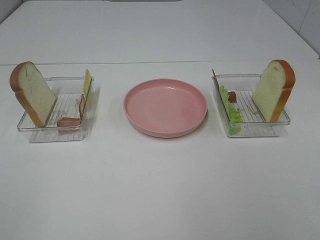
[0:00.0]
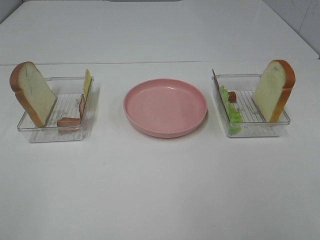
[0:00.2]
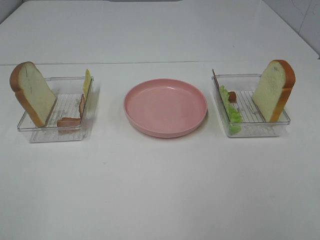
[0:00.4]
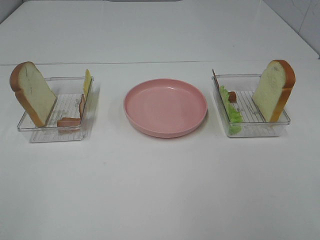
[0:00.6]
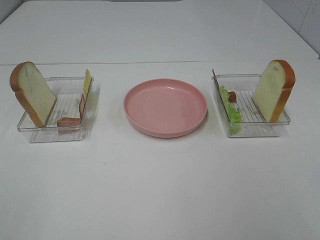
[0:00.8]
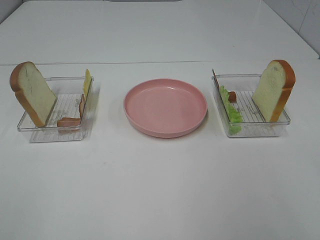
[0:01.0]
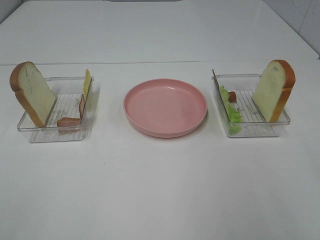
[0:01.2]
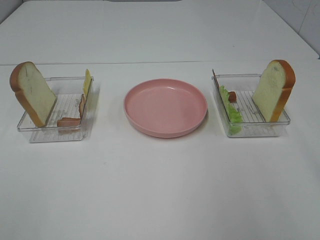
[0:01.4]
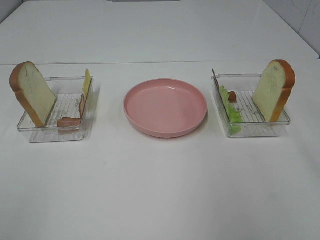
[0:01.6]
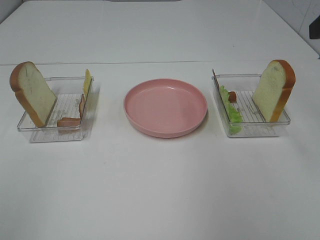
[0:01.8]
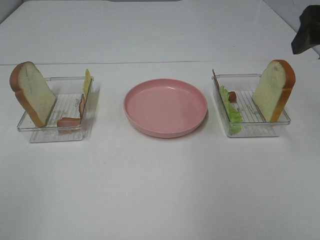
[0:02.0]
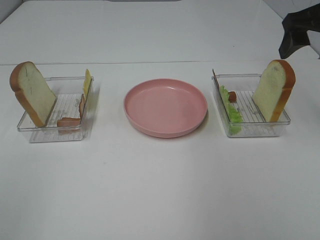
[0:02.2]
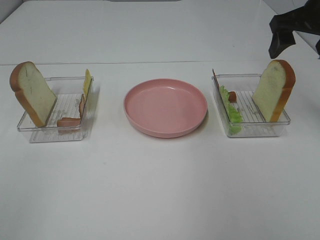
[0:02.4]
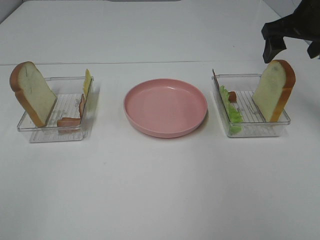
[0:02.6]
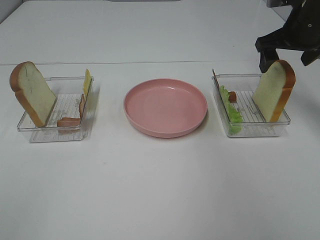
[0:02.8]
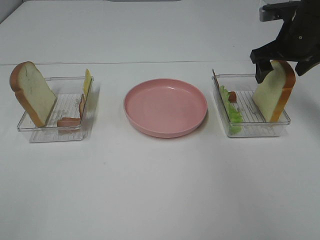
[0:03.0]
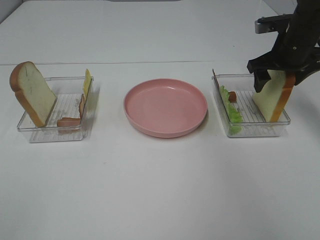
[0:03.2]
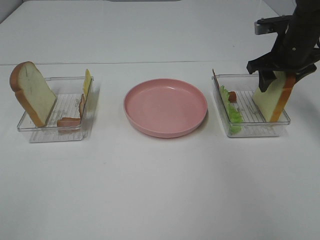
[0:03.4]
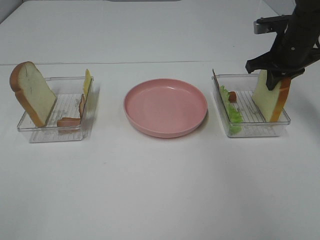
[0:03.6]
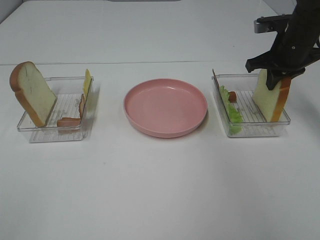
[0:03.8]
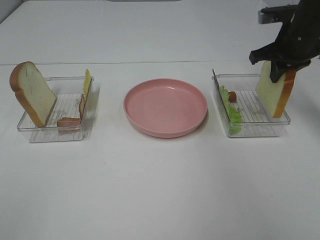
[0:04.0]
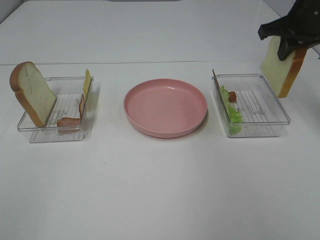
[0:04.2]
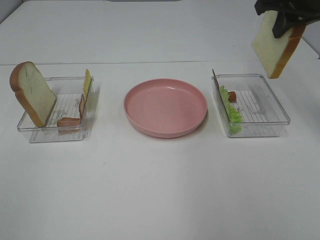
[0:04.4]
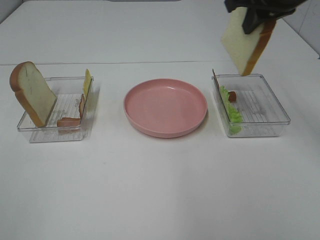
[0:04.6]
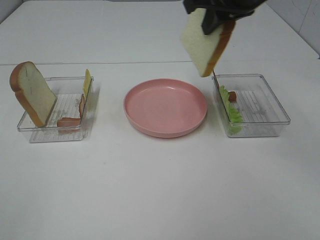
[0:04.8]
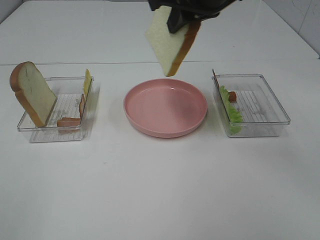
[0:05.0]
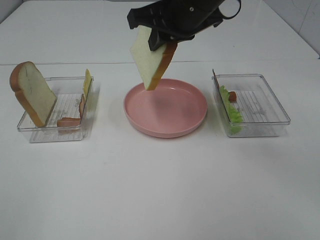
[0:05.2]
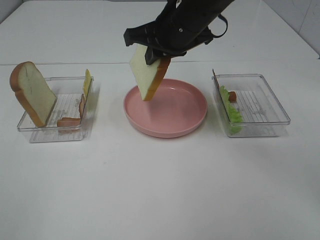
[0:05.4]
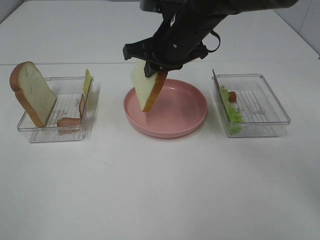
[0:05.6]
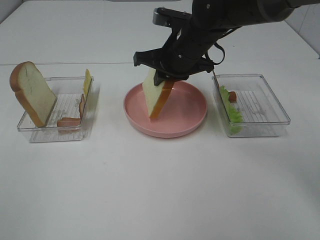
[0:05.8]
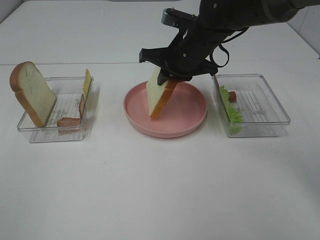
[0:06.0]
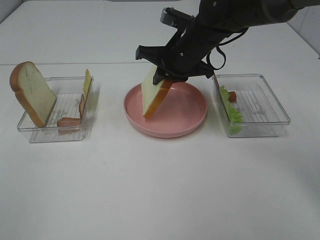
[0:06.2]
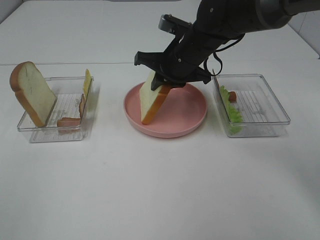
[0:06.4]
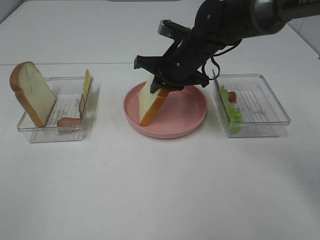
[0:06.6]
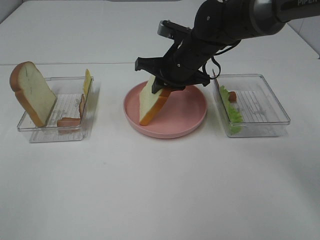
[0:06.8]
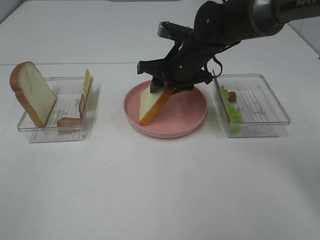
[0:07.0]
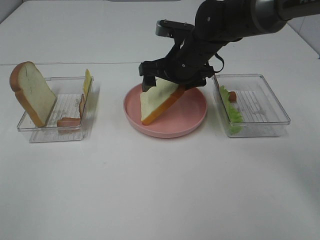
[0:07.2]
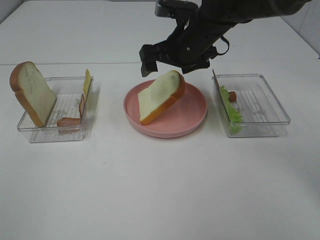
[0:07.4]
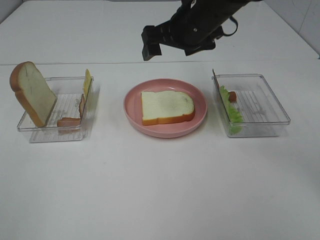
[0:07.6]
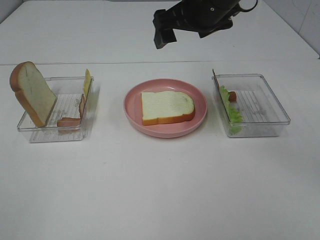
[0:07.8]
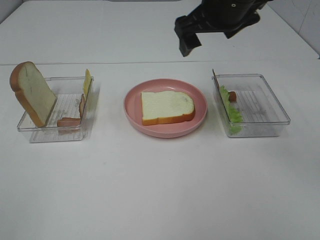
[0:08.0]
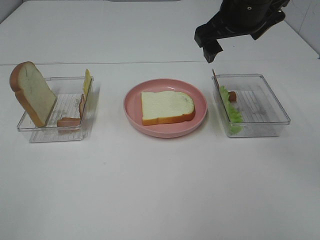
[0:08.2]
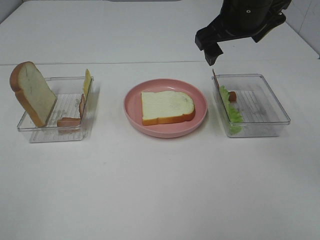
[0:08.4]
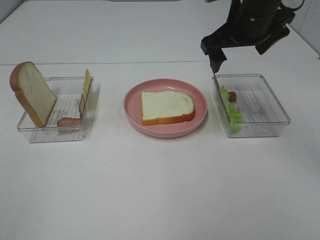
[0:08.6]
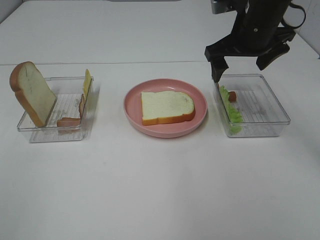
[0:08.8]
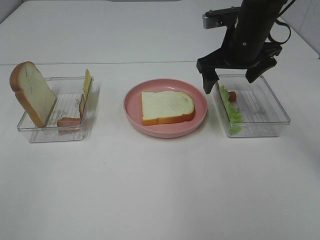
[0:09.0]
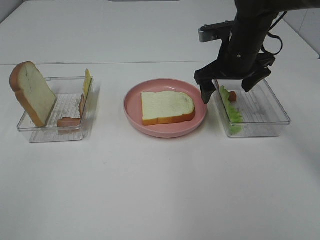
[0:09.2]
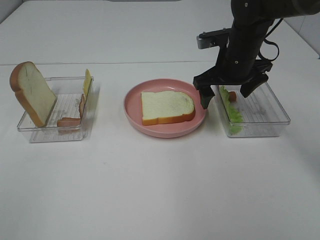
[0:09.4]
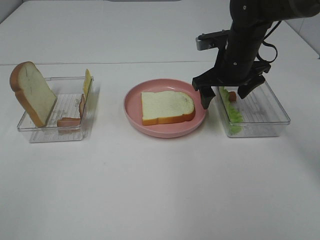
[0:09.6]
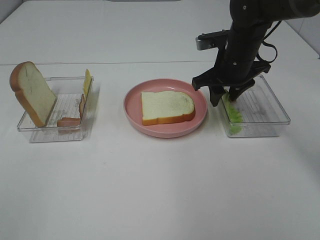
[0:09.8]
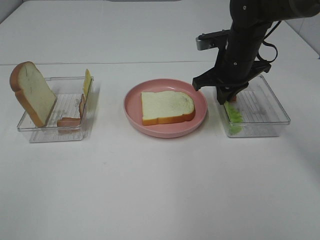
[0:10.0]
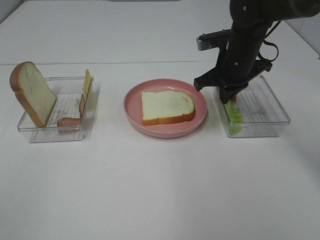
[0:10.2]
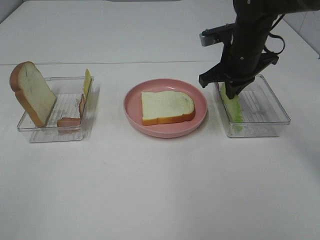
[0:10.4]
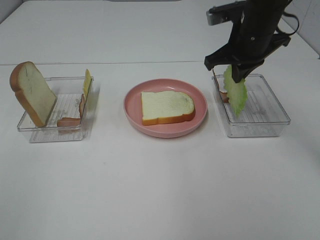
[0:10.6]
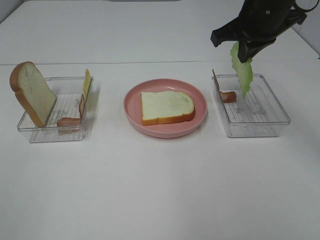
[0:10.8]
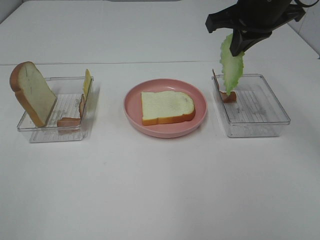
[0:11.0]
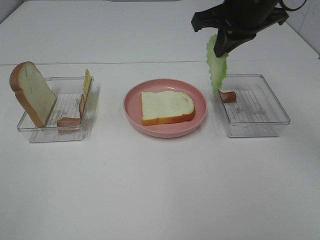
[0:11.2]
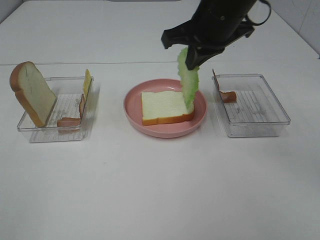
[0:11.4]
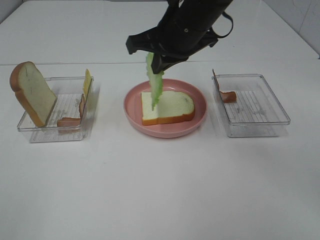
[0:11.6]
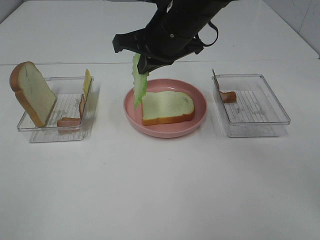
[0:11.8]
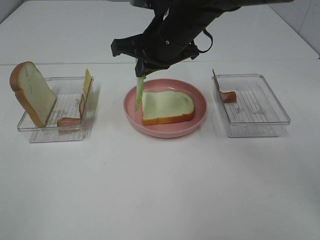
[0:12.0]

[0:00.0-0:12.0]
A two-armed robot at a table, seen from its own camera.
Task of the whole recording: Make sandwiches.
Step, 0.0 to 3.8 s: Right hand:grab the bread slice.
Step, 4.0 to 7.6 s: Right hand:place the bread slice on the plate.
Step, 7.8 to 10.2 s: Right hand:grab the lettuce slice.
1.6 to 3.0 s: The right gripper is displaced forward and downward by some 25 cm.
3.0 to 4.4 s: The right gripper travels upward by about 10 cm, and closes up.
4.4 to 6.0 s: The right gripper heads to the left and downward, covering approximately 20 cm.
6.0 to 7.6 s: The right gripper moves upward, roughly 5 cm, and opens up.
7.6 to 9.0 s: The right gripper travels to the right by some 10 cm.
9.0 to 10.4 s: The right gripper closes.
10.4 to 12.0 s: The right gripper is displaced to the left by roughly 15 cm.

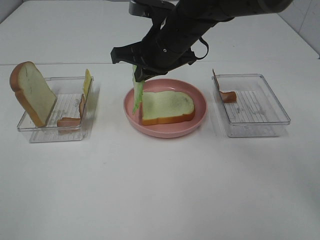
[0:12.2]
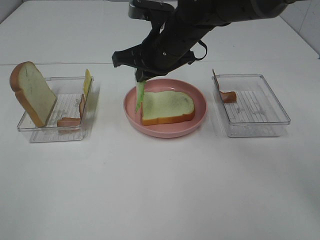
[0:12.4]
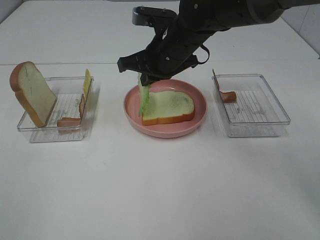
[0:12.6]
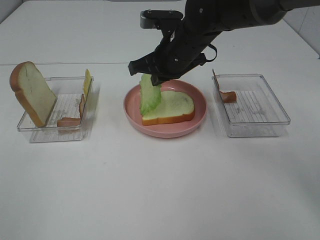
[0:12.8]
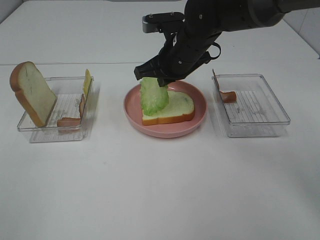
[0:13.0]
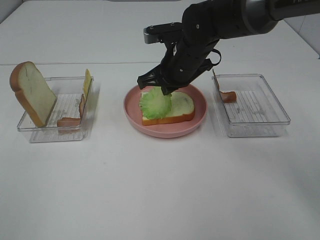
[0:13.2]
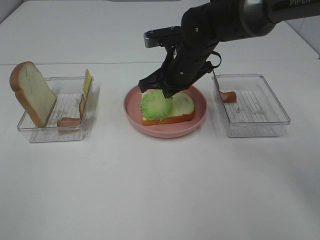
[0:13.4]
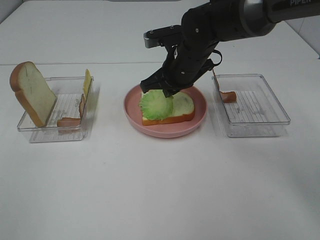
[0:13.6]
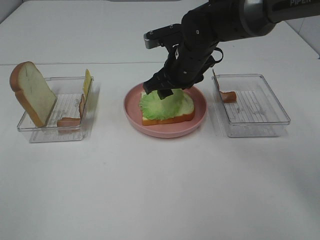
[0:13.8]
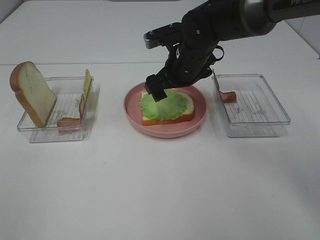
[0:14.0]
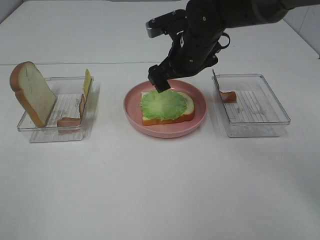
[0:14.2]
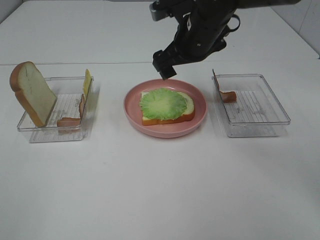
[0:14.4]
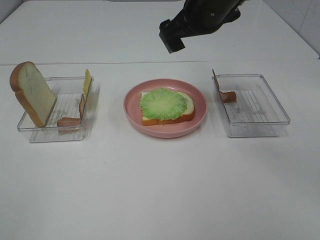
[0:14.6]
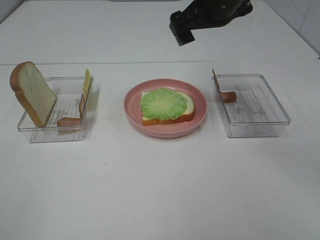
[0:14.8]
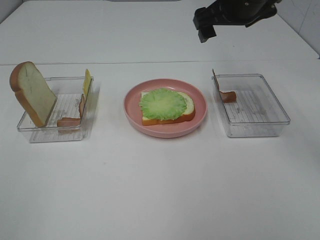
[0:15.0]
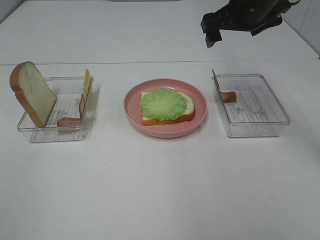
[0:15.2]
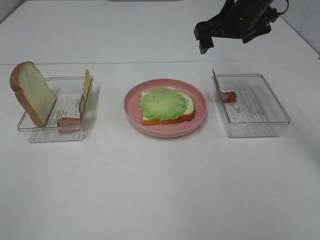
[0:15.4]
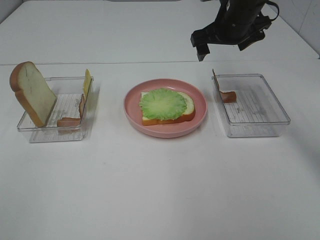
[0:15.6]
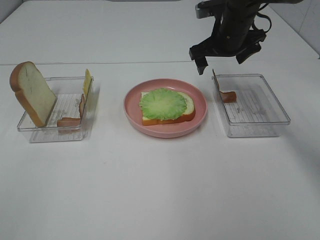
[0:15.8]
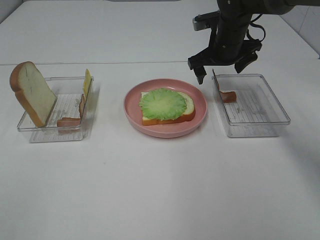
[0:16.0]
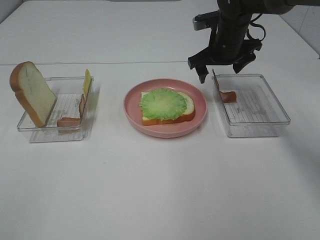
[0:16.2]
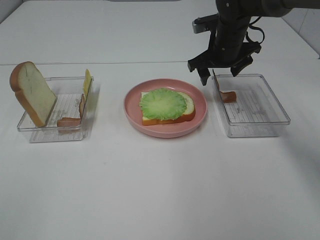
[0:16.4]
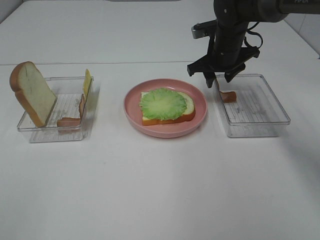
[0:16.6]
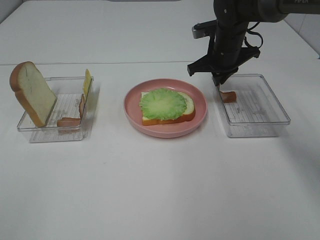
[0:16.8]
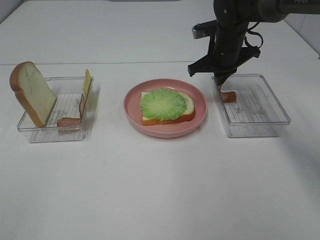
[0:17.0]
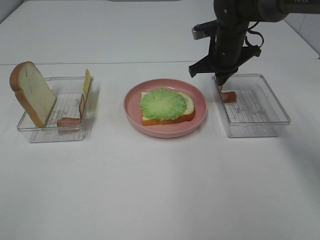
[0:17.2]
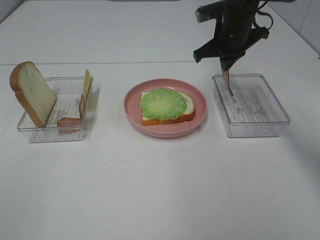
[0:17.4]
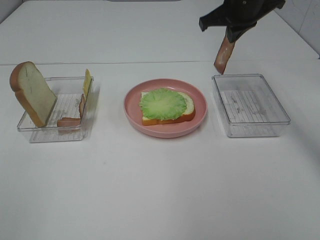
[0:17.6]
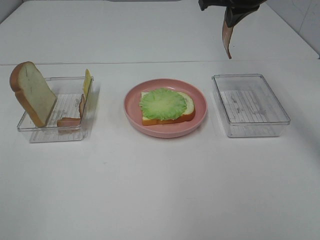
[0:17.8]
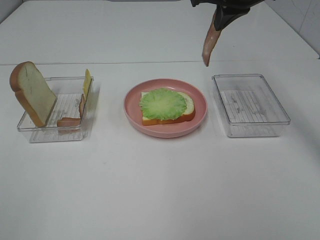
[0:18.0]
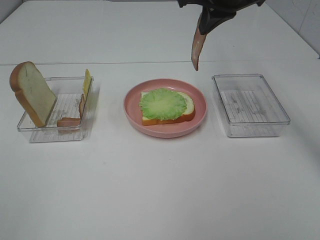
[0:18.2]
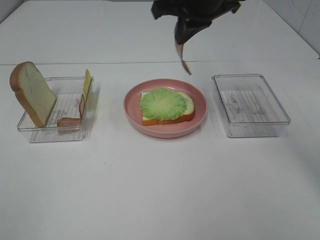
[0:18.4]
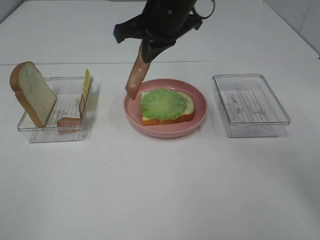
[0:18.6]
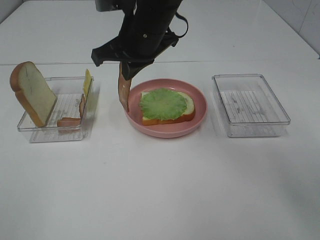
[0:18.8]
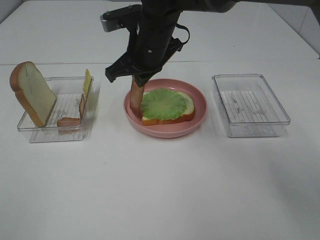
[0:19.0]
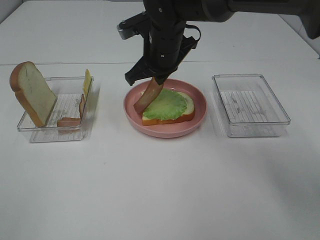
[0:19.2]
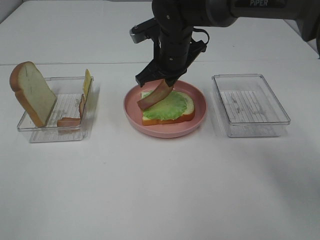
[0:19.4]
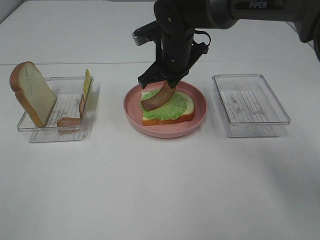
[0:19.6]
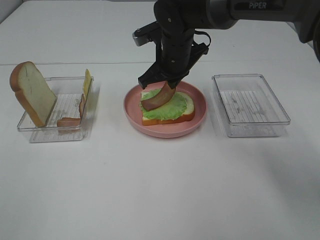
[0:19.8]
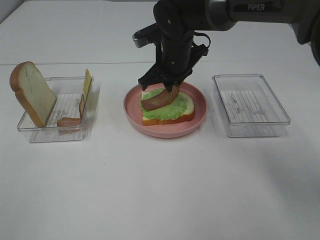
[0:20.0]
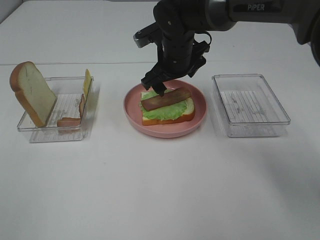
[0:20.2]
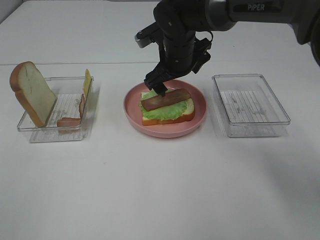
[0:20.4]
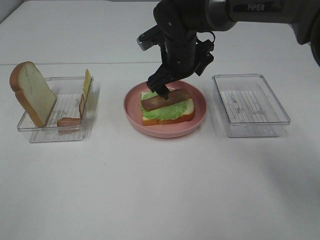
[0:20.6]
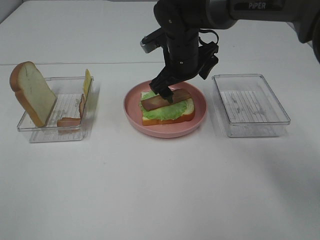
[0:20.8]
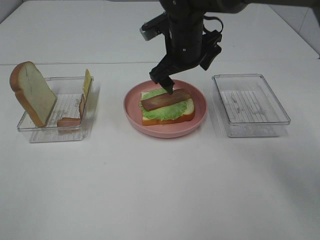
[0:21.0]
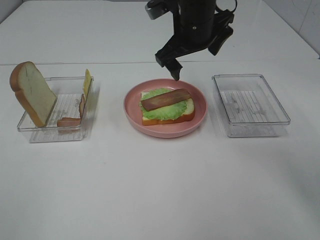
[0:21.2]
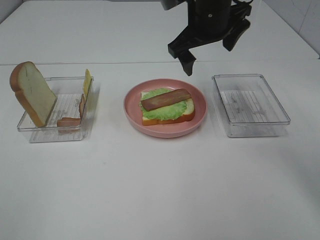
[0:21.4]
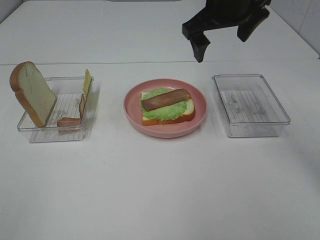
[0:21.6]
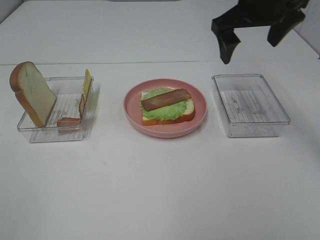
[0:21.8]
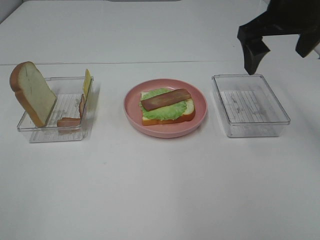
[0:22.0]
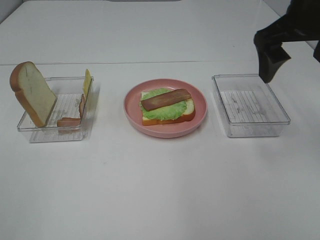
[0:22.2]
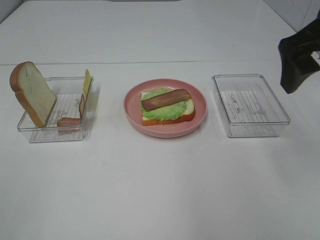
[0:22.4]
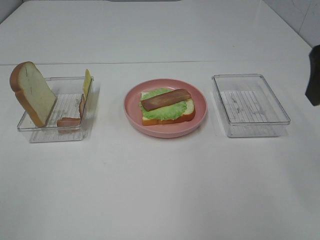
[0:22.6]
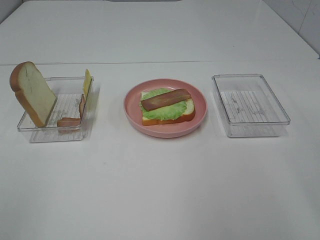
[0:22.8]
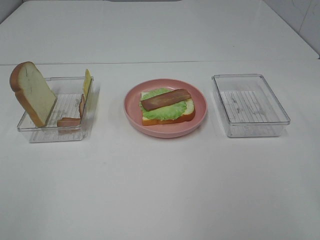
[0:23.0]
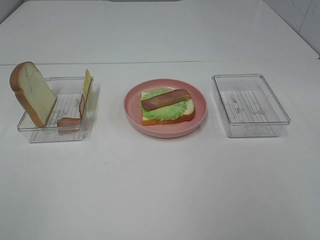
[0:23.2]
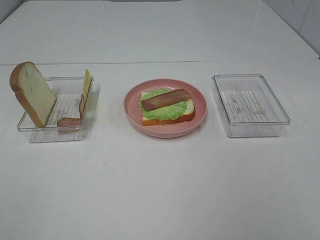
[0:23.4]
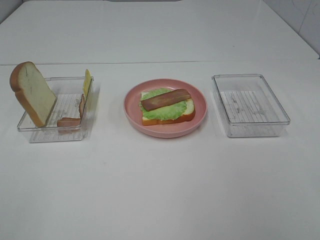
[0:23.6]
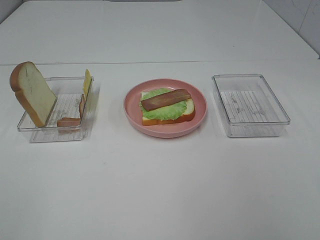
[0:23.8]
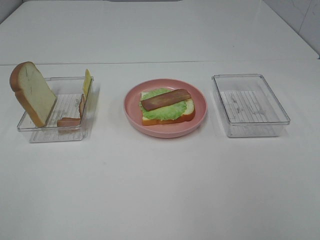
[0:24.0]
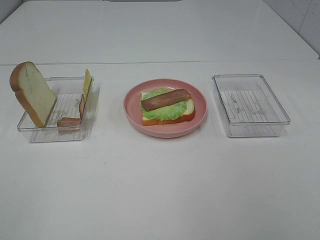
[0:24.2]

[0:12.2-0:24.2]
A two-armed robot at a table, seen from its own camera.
Task of the whole recording: Make sandwiches.
Step, 12.2 to 14.2 s: Right hand:place the lettuce slice on the bread slice.
Step, 14.4 to 16.8 s: Right hand:grab the bacon.
Step, 17.0 to 20.6 s: Right hand:place bacon on lettuce slice.
12.2 to 13.8 s: The right gripper is displaced downward by roughly 5 cm, and opens its fingers.
13.8 to 15.2 s: The right gripper heads to the right and upward, covering approximately 15 cm.
15.2 to 16.6 s: The right gripper moves downward and forward, some 10 cm, and closes its fingers.
16.6 to 18.2 s: The right gripper shifts some 15 cm upward, and closes up.
18.2 to 19.8 s: The right gripper heads downward and to the left, covering some 15 cm.
19.8 to 21.2 s: The right gripper goes roughly 10 cm upward, and opens its fingers.
21.2 to 22.6 s: The right gripper travels backward, to the right and upward by some 25 cm.
22.6 to 24.2 s: The right gripper goes some 20 cm backward.
